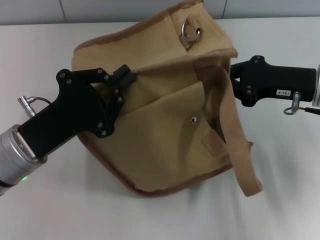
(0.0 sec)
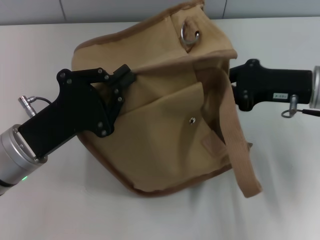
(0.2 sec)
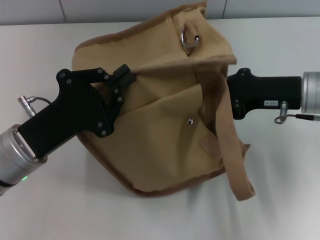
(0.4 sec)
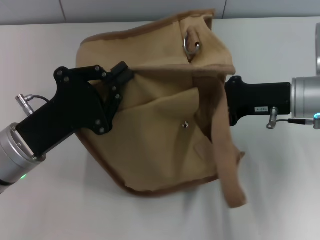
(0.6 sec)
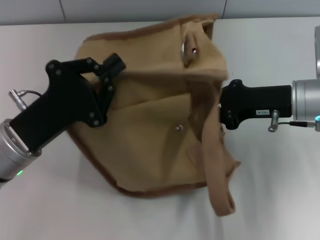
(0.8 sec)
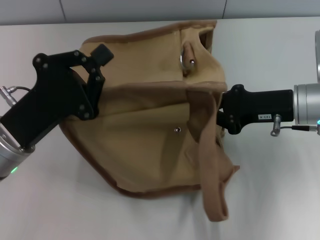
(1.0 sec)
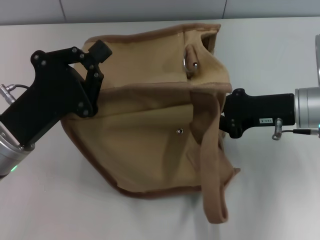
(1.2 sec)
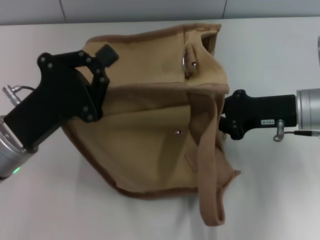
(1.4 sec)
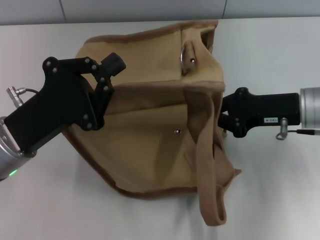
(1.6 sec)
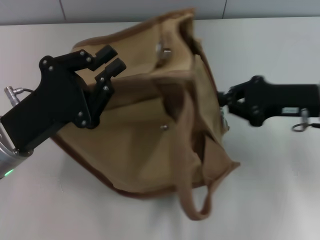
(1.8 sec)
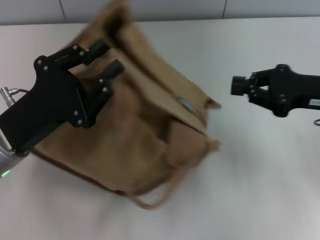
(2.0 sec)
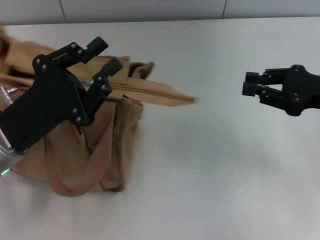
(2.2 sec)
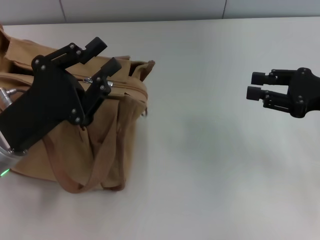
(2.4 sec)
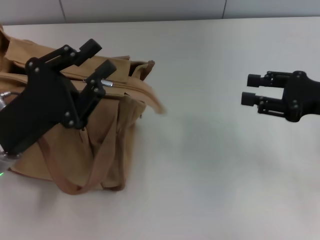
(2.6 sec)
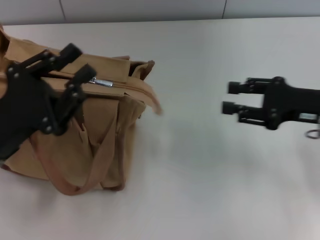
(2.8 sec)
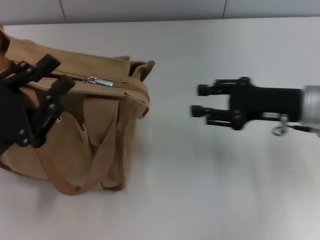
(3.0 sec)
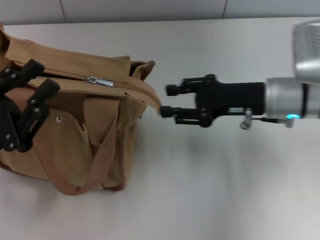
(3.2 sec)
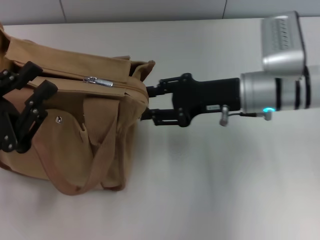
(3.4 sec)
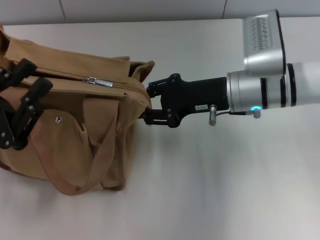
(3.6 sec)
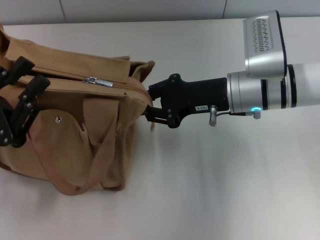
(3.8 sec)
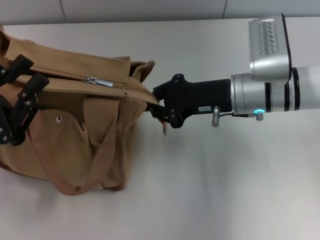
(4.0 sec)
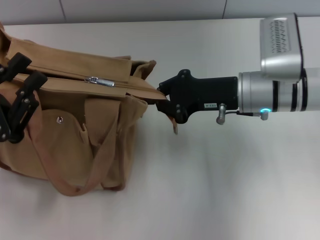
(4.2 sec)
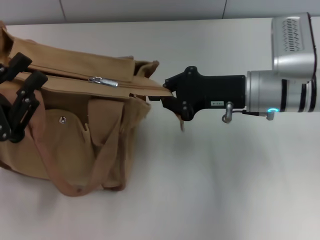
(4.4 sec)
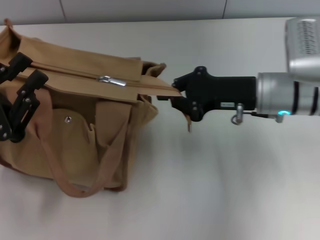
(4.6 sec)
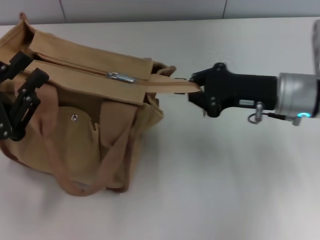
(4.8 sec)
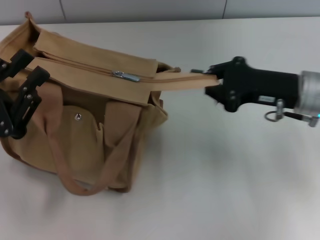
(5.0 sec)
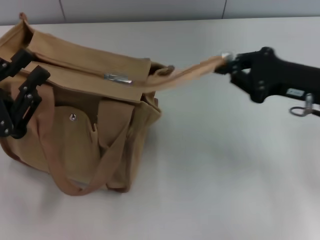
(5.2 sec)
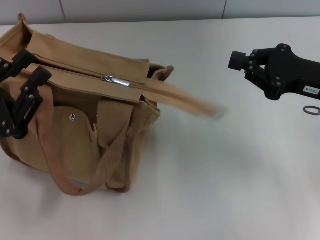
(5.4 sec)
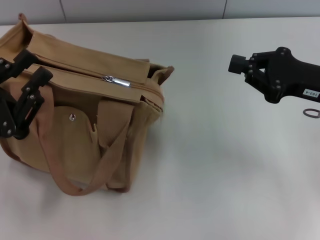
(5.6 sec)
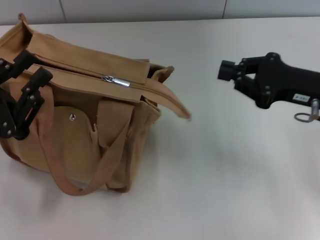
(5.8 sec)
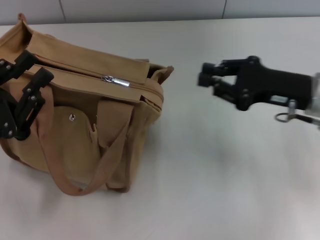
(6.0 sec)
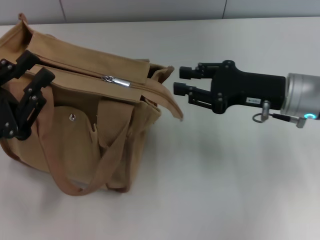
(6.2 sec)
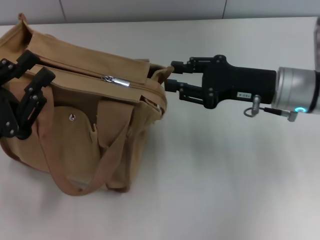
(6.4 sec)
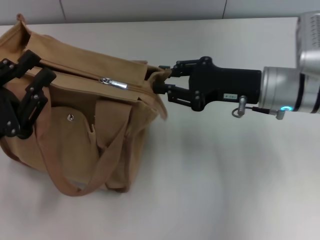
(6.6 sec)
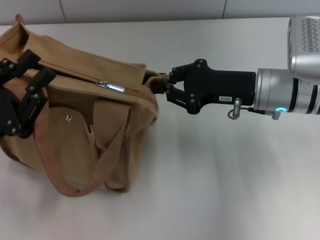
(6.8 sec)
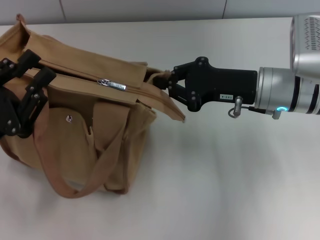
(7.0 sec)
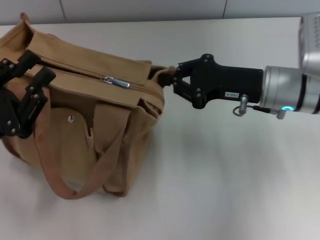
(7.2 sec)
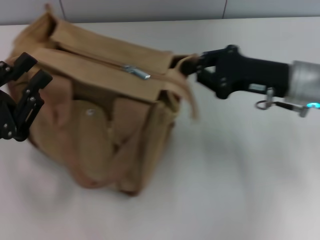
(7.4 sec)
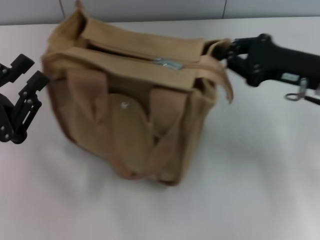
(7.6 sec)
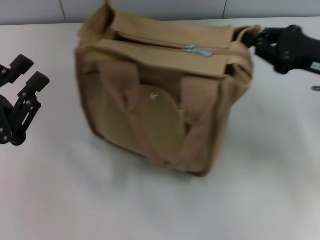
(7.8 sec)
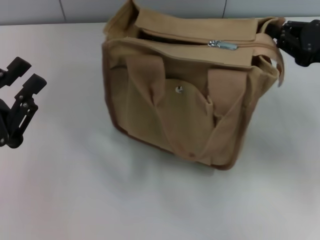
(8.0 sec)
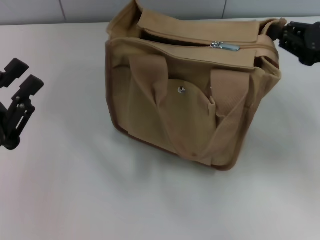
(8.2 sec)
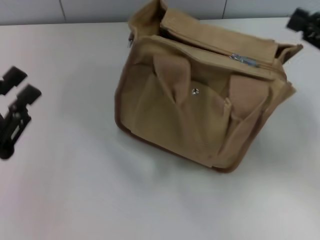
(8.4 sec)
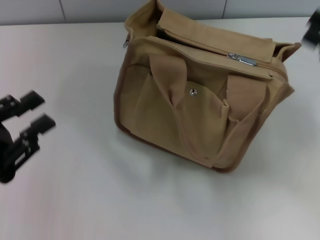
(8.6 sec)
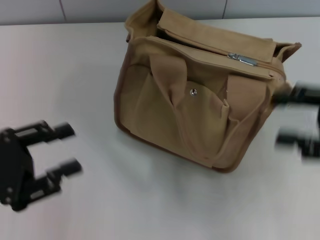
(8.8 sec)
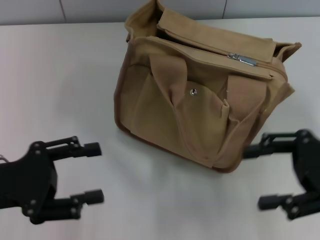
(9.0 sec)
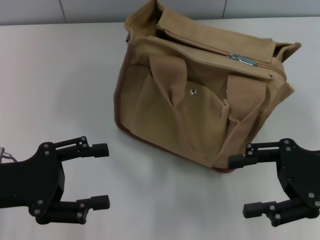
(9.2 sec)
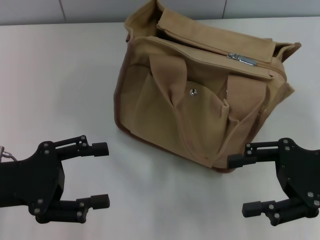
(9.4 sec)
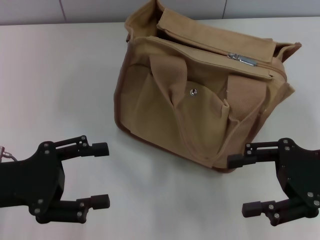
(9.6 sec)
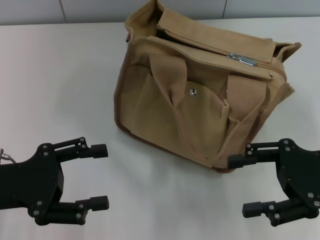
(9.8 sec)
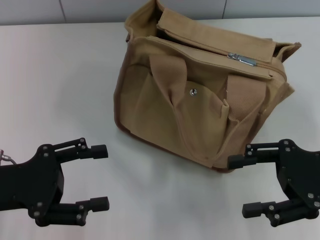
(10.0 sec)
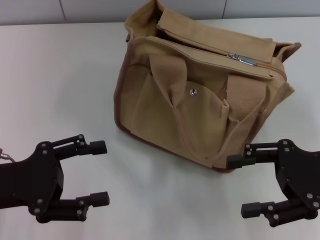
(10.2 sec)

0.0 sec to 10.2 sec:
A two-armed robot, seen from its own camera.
1.4 sec to 3.0 sec: The left gripper heads to the left, covering some 5 cm, while the right gripper moves some 10 cm to the right and comes back, and opens its fingers.
3.0 sec to 4.4 sec: The right gripper shifts some 5 cm to the left, and closes up.
4.4 sec to 5.8 sec: The right gripper moves to the right, approximately 10 cm.
5.8 sec to 7.2 sec: The right gripper goes approximately 5 cm to the left, and opens, then closes again.
7.2 sec to 8.8 sec: The right gripper is displaced to the right and backward by about 15 cm, and opens.
8.8 sec to 10.2 sec: The left gripper opens its fingers. The right gripper ends up about 5 cm from where it was, and opens up.

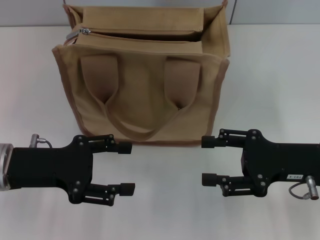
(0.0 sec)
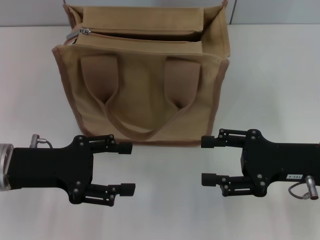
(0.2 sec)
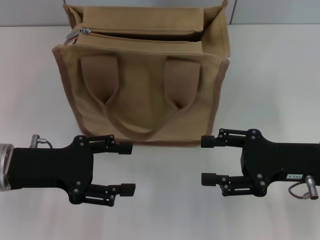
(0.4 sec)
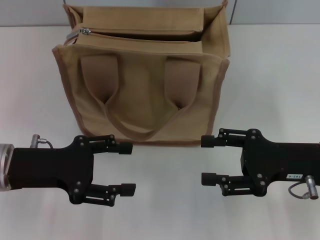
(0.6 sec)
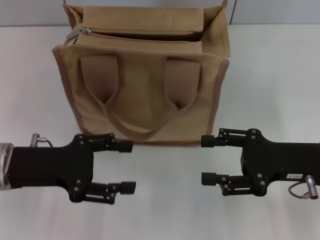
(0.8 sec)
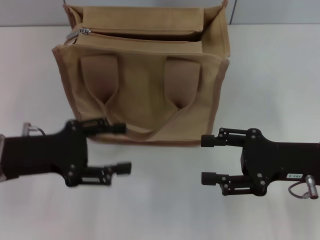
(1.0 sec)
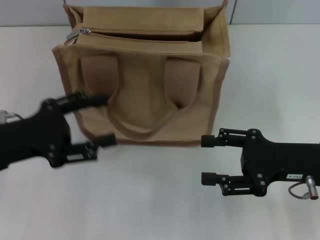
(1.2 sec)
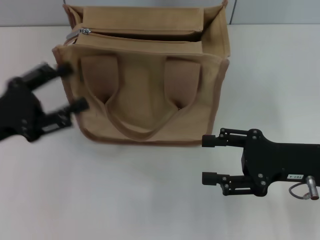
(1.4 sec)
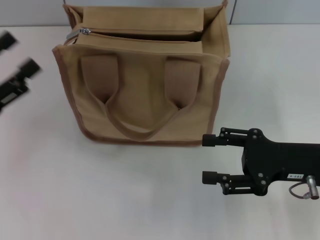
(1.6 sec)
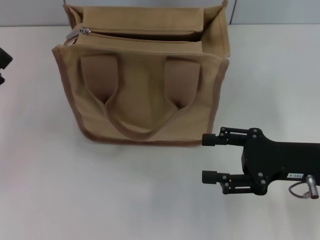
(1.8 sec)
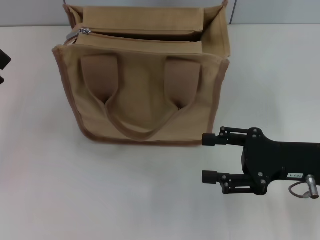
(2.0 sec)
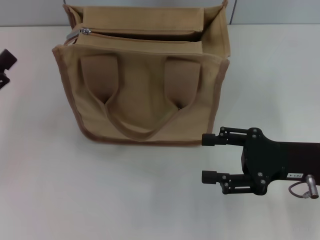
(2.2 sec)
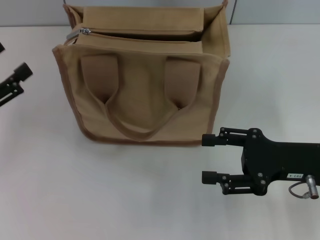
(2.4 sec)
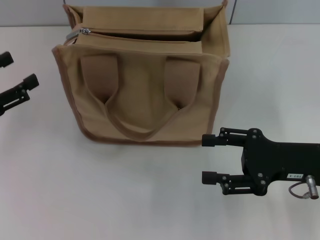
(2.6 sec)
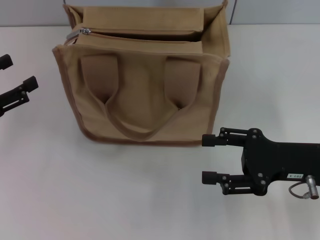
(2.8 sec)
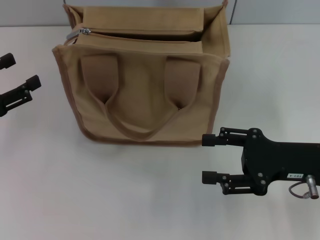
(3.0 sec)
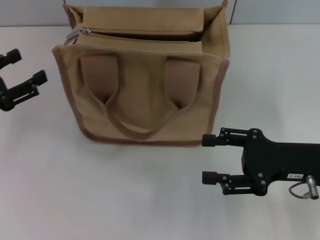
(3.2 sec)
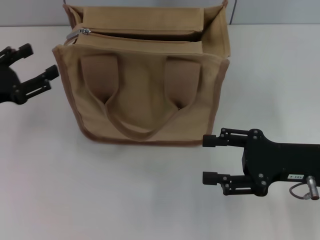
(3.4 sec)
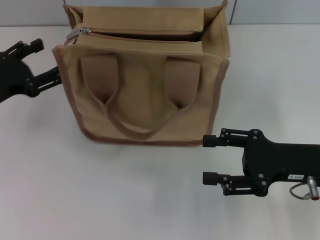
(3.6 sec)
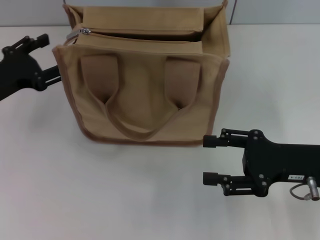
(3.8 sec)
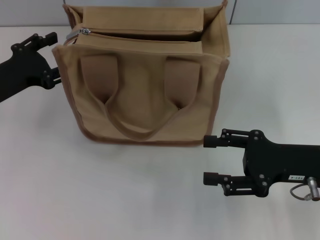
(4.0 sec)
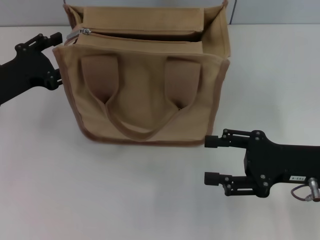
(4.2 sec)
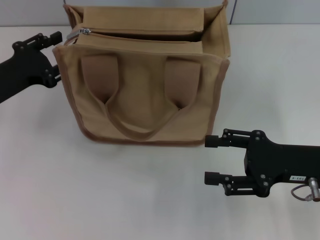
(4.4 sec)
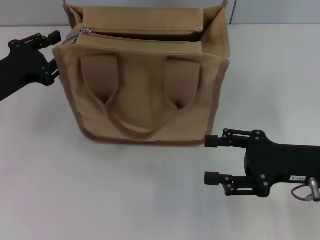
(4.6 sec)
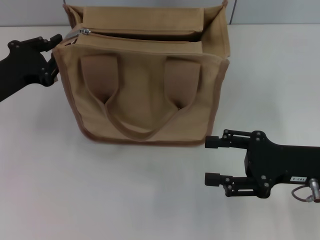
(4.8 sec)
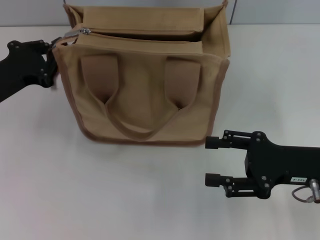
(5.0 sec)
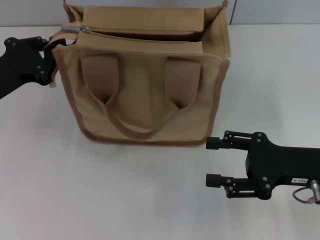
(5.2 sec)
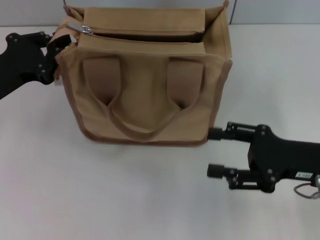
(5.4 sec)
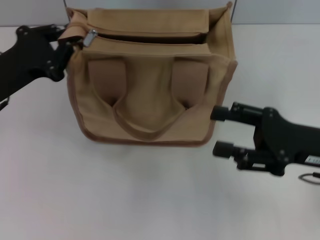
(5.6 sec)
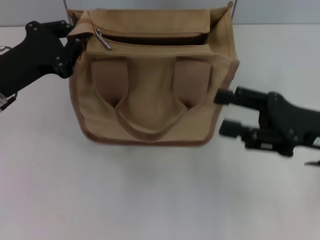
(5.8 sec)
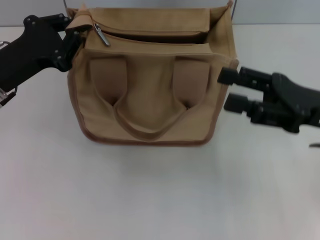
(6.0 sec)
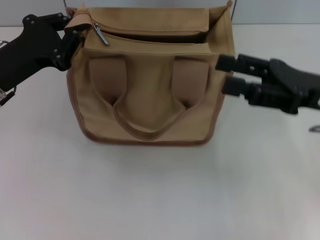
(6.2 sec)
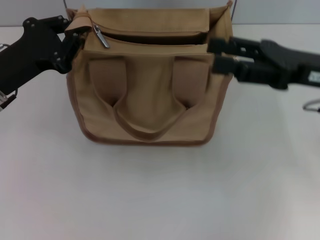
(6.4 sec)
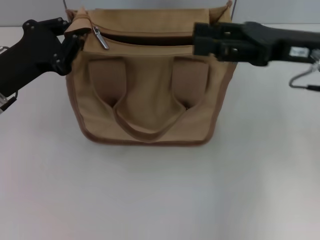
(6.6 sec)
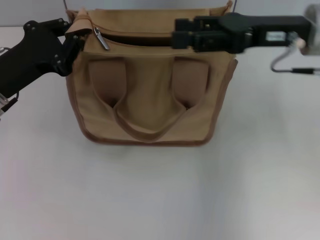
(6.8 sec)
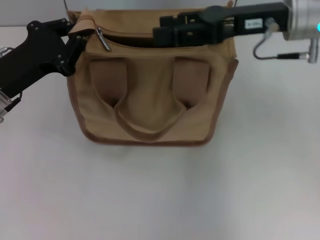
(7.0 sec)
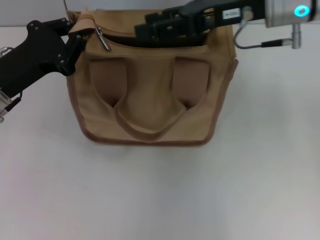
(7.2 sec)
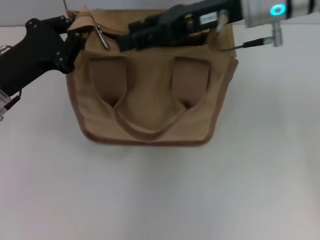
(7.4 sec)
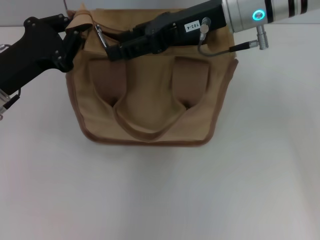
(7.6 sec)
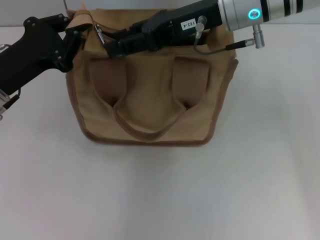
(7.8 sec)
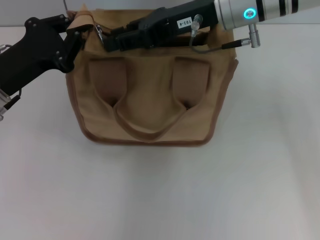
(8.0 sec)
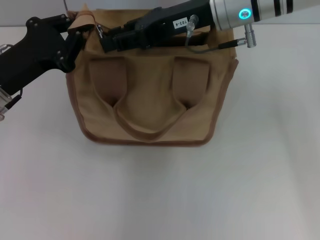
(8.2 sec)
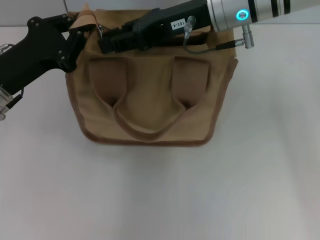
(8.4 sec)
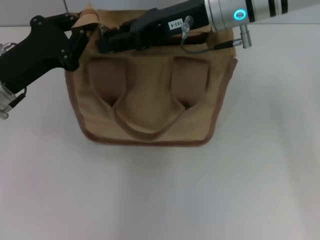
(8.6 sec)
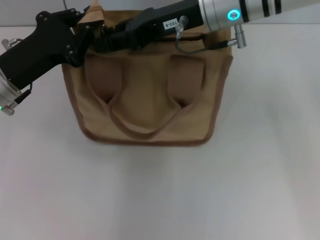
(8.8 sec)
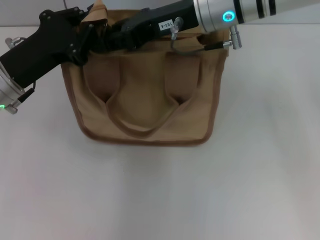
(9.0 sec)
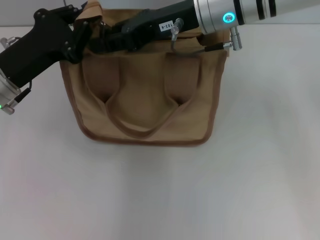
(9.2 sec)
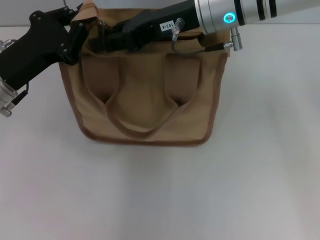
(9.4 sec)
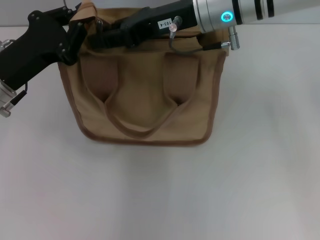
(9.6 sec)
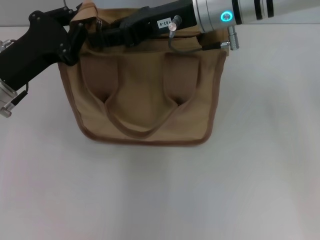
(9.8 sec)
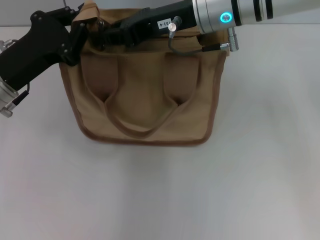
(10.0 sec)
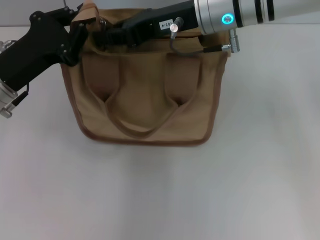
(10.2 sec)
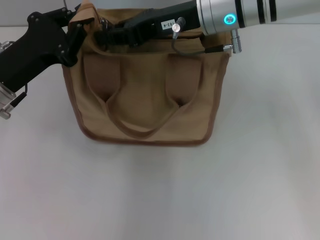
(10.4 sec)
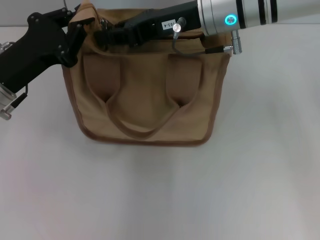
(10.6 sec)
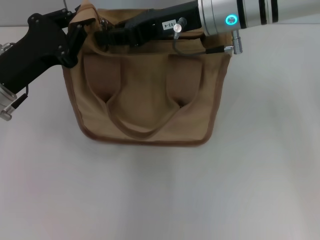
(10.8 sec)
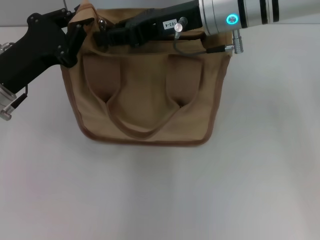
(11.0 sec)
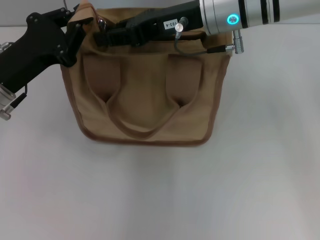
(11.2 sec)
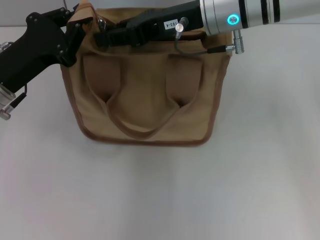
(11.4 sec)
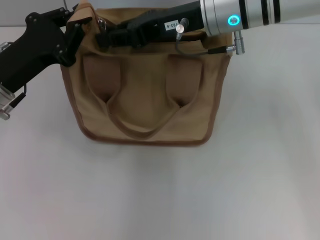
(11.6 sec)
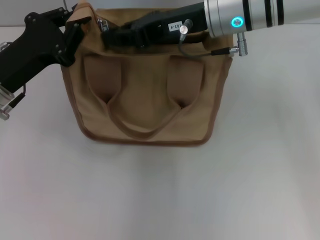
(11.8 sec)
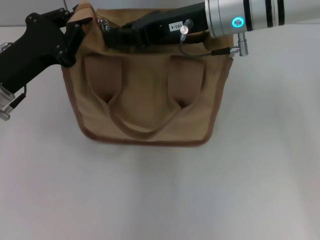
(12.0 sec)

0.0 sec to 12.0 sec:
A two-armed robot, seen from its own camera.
0.0 sec to 1.6 sec: The left gripper travels to the left by some 5 cm.
3.0 sec to 4.4 sec: The left gripper goes some 10 cm forward and to the right.
4.4 sec to 6.0 sec: The left gripper closes; the right gripper shifts approximately 5 cm upward.
6.0 sec to 7.6 sec: The right gripper moves to the left, forward and upward, about 20 cm.
7.6 sec to 9.0 sec: The right gripper closes up.
9.0 sec to 10.4 sec: Both grippers stay put.
10.4 sec to 12.0 sec: Neither gripper changes place.
